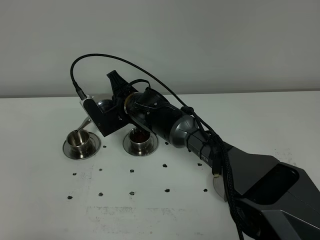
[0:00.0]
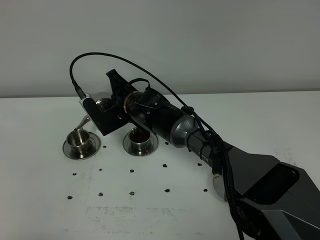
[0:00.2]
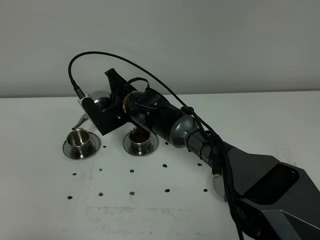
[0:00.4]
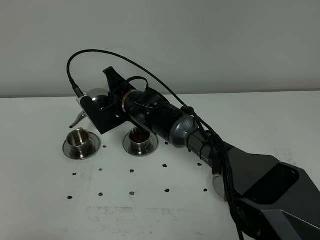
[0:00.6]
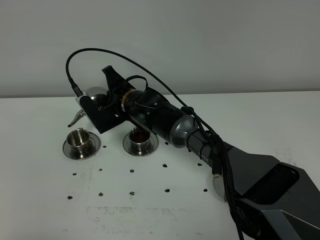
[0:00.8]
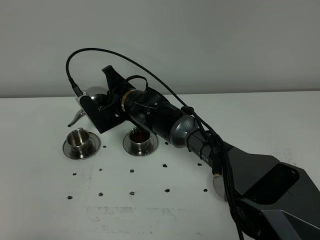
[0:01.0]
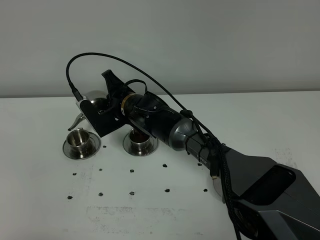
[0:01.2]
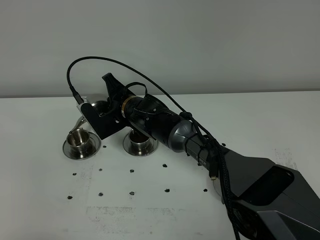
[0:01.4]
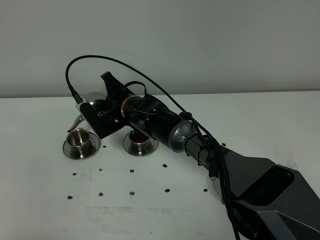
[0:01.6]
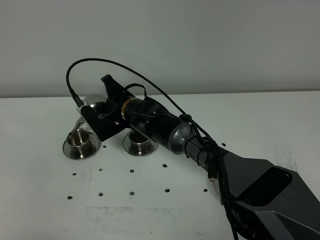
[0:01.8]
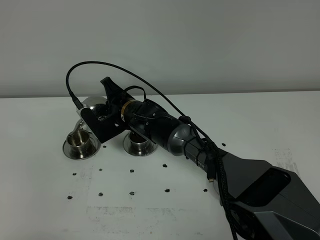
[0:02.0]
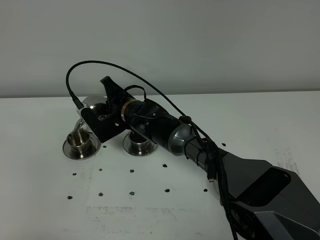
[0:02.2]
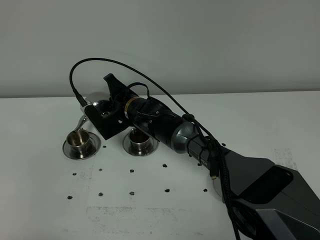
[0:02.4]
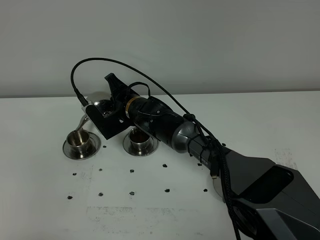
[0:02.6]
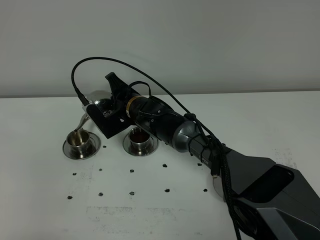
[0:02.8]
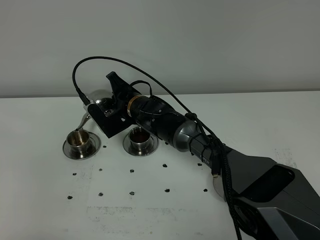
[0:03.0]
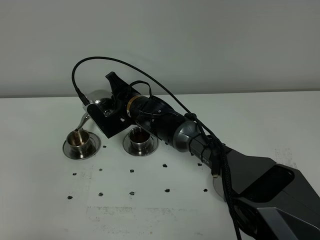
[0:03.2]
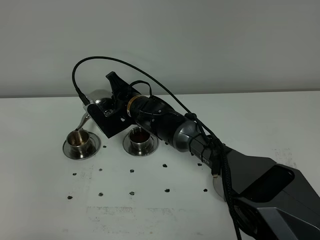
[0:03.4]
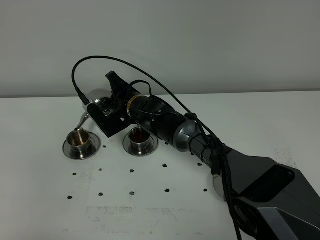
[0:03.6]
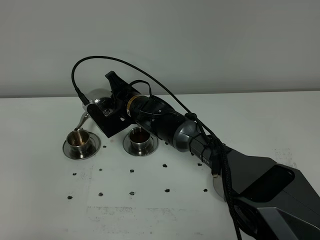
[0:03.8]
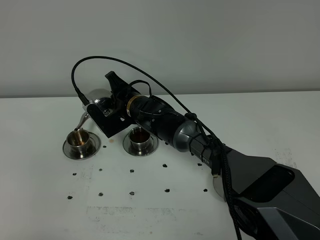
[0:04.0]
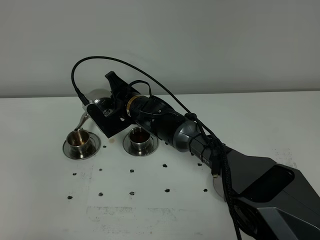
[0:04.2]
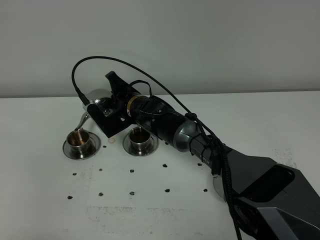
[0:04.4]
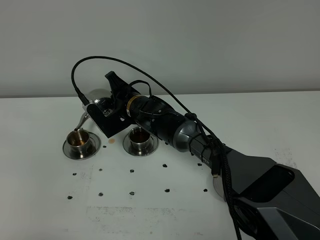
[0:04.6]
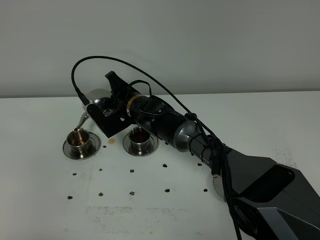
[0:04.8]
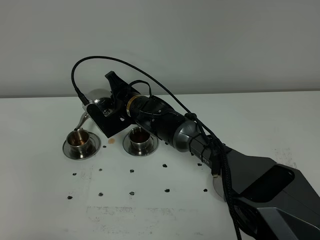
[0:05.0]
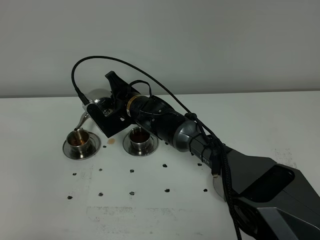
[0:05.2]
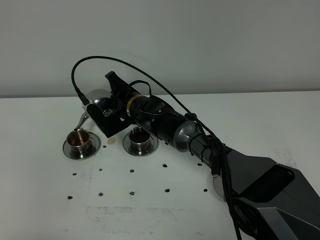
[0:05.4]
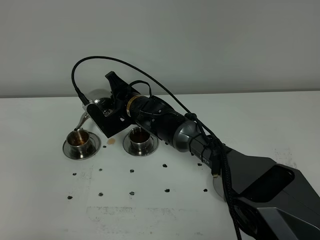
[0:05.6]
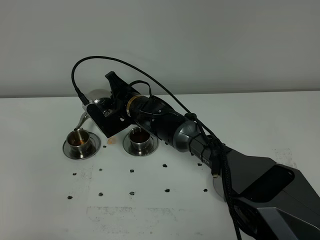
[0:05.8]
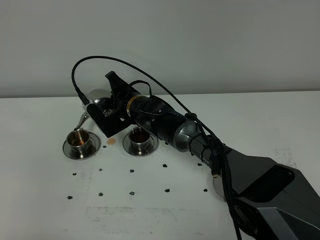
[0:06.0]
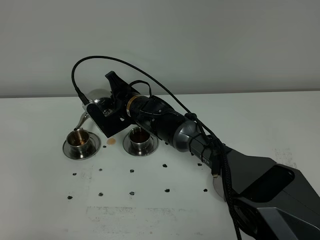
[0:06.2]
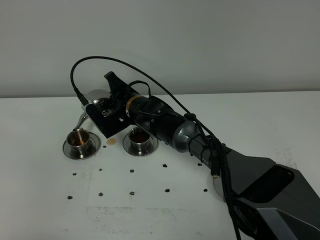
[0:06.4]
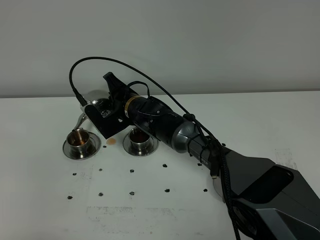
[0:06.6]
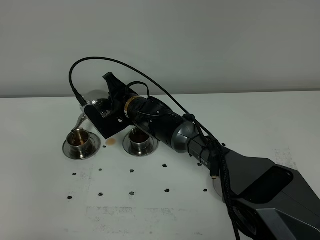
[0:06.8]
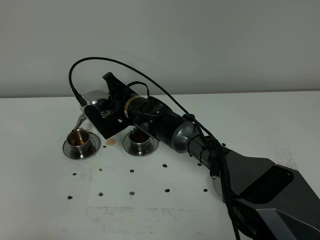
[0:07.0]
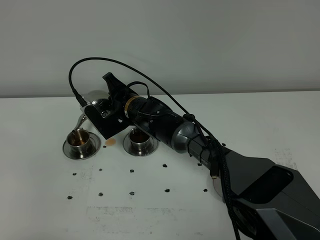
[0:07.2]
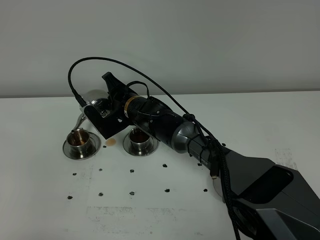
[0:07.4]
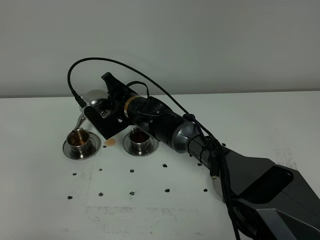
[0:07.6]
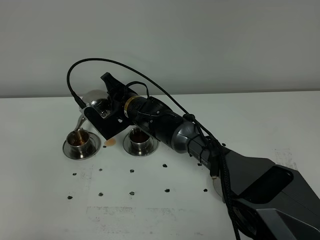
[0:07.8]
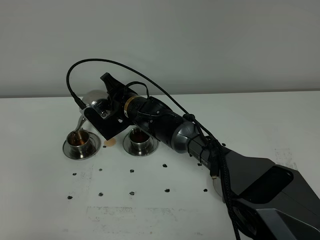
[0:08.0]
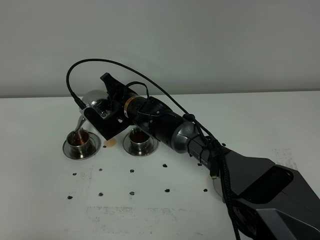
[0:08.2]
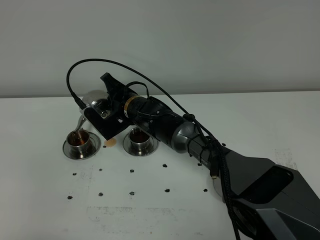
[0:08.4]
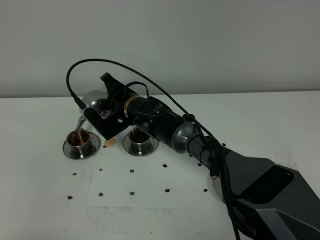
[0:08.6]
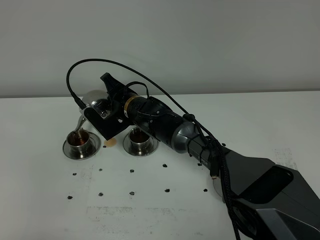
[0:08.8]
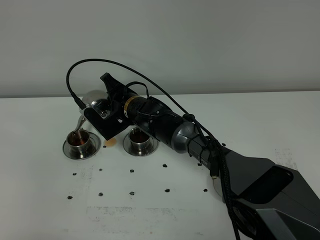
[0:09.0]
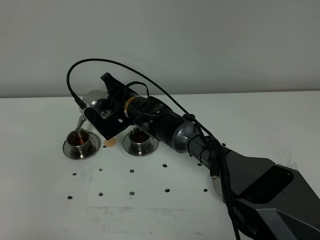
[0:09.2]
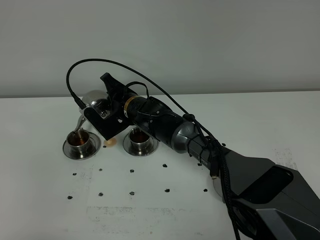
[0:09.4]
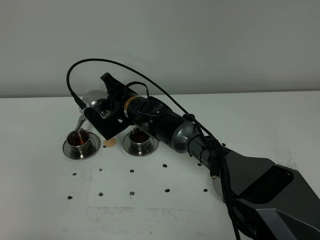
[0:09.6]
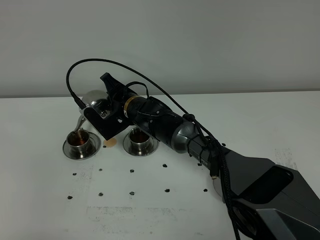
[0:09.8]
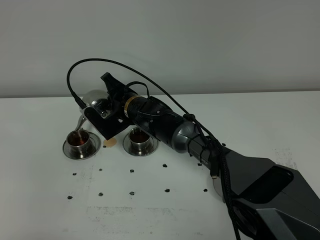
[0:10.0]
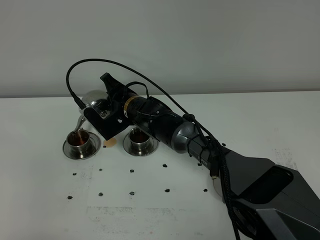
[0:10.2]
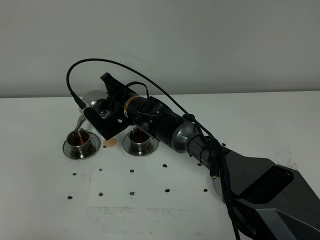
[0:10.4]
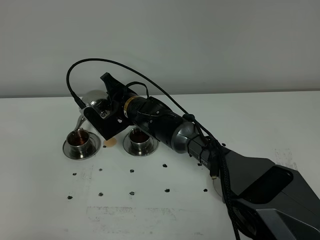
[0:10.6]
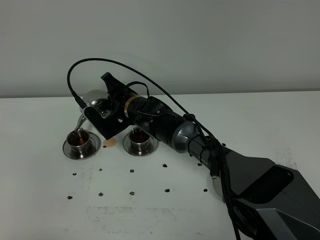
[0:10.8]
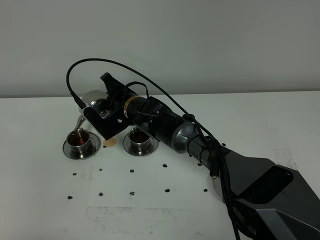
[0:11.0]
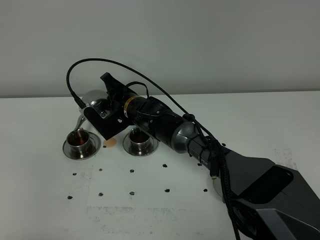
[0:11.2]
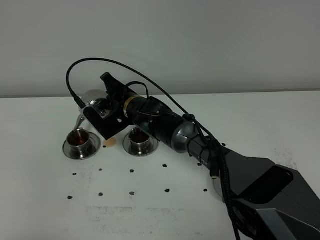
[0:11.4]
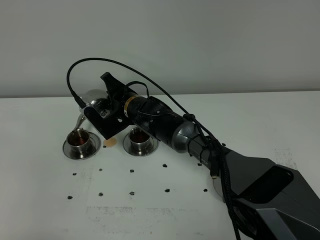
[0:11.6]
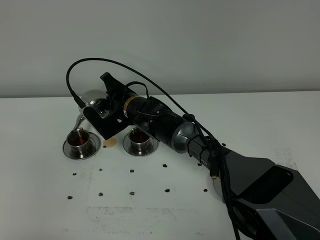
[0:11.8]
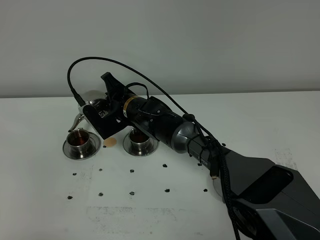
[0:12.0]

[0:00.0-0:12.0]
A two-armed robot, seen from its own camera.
Task of the whole recording: grasp the stainless steel teapot and pour the tea into the two stainless steel teacups one by one, put the stainless steel teapot back in its original place.
0:00.0 to 0:03.0: There are only small adjustments of the grippers.
0:03.0 to 0:12.0: Both grippers stay about where they are.

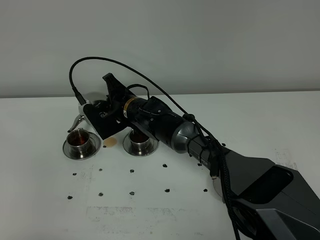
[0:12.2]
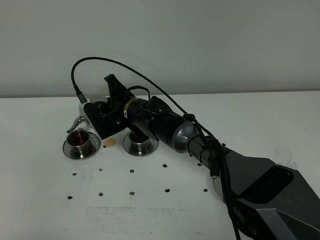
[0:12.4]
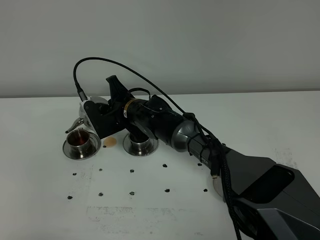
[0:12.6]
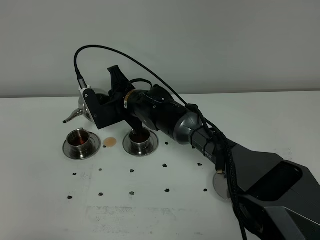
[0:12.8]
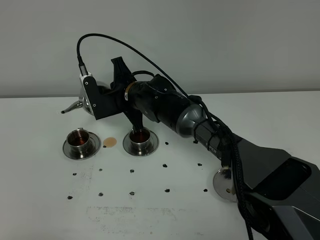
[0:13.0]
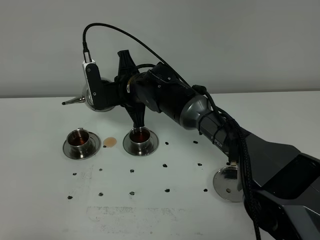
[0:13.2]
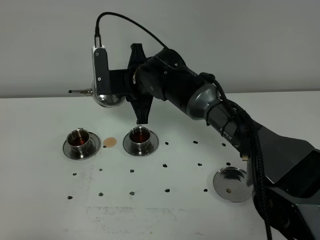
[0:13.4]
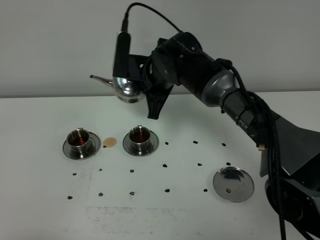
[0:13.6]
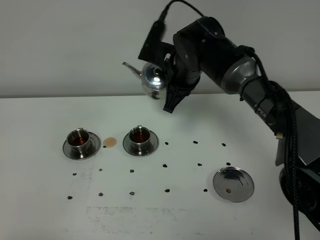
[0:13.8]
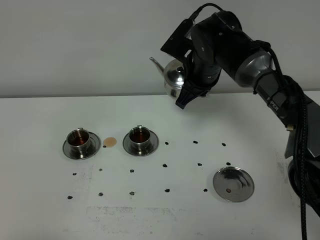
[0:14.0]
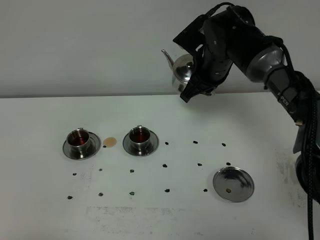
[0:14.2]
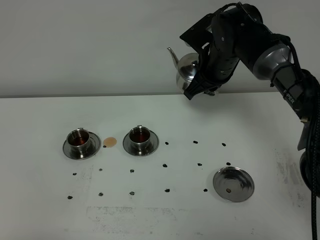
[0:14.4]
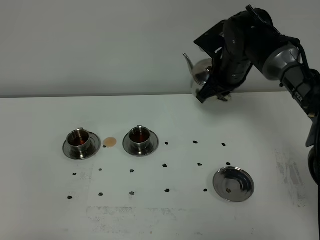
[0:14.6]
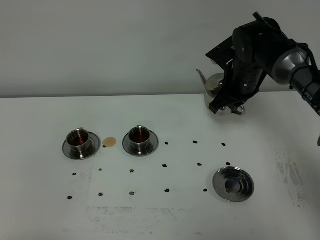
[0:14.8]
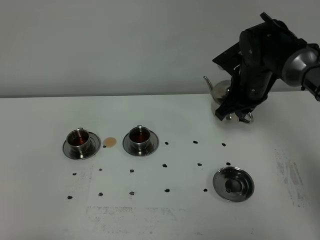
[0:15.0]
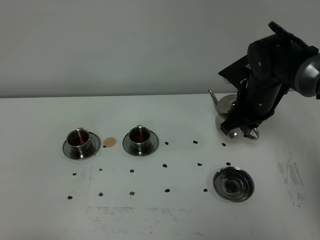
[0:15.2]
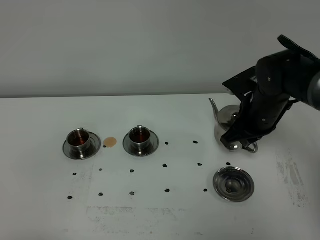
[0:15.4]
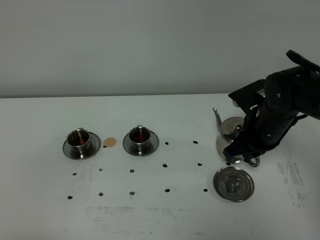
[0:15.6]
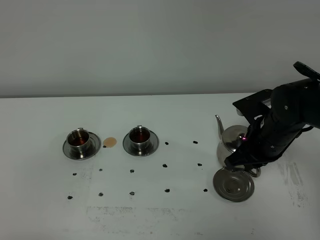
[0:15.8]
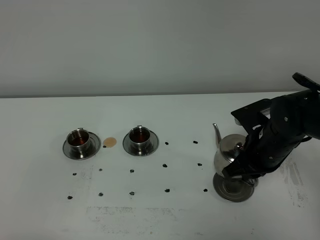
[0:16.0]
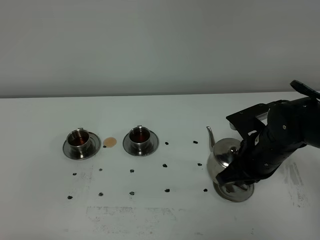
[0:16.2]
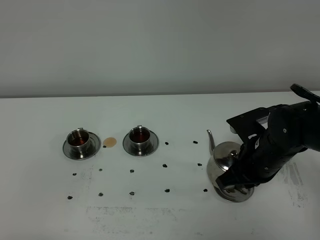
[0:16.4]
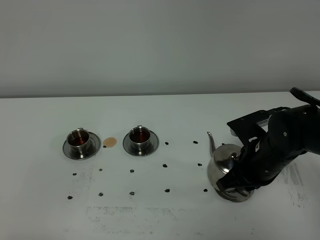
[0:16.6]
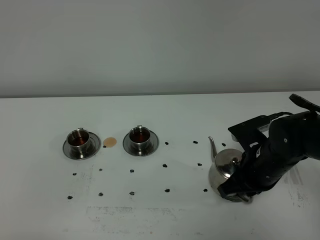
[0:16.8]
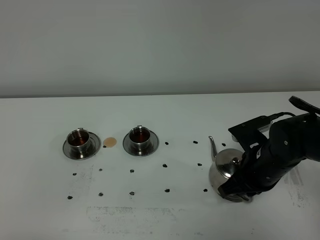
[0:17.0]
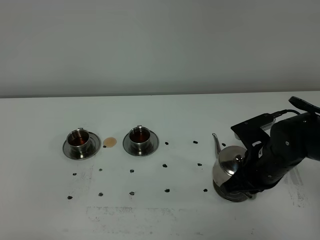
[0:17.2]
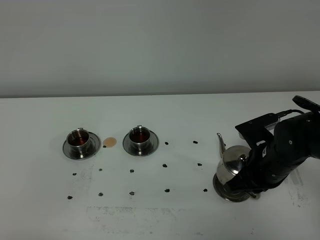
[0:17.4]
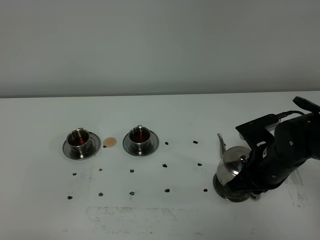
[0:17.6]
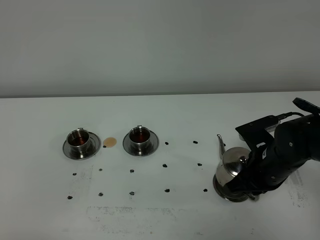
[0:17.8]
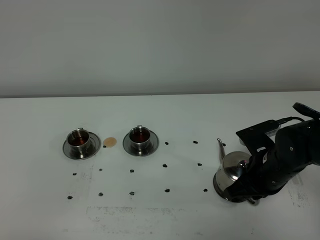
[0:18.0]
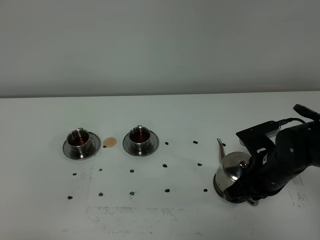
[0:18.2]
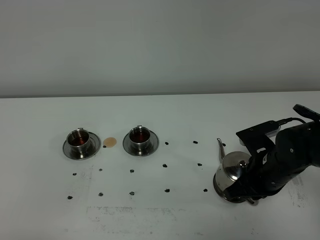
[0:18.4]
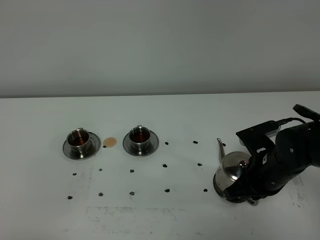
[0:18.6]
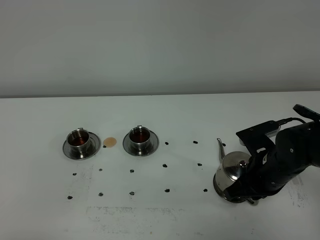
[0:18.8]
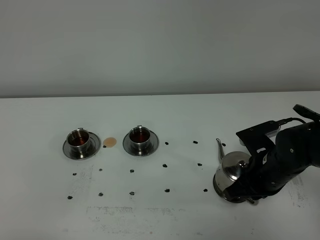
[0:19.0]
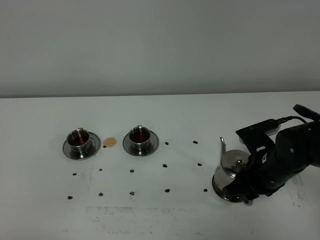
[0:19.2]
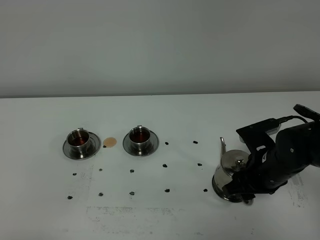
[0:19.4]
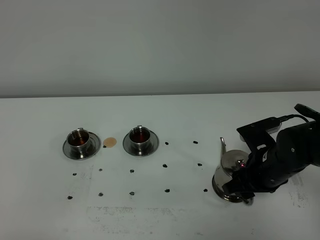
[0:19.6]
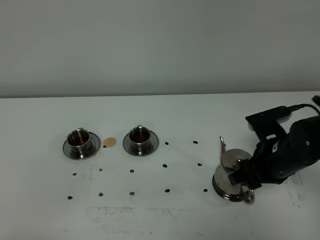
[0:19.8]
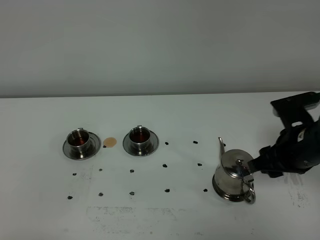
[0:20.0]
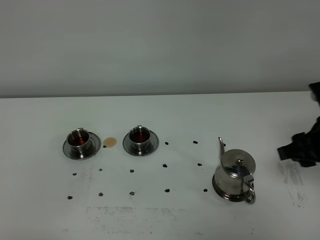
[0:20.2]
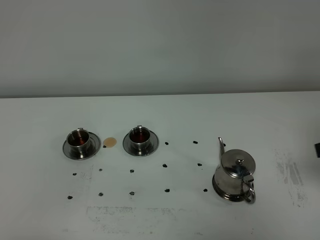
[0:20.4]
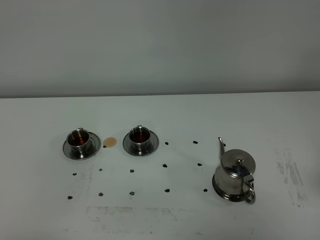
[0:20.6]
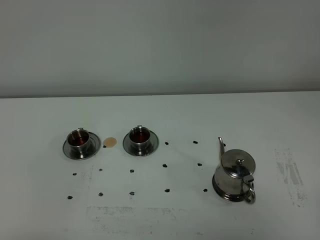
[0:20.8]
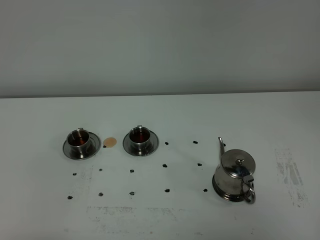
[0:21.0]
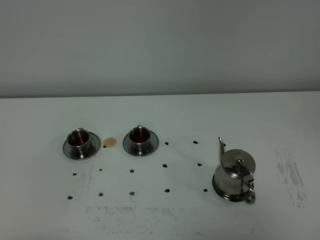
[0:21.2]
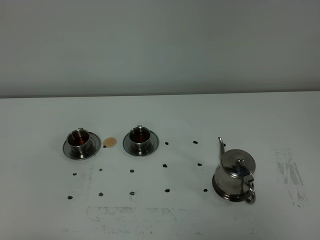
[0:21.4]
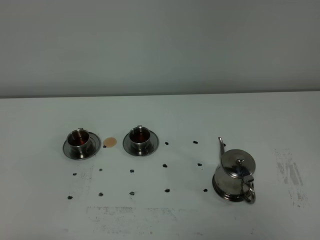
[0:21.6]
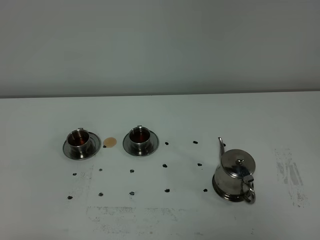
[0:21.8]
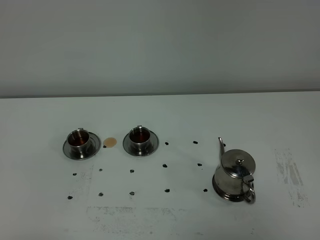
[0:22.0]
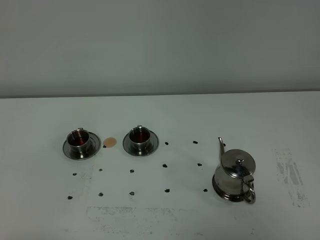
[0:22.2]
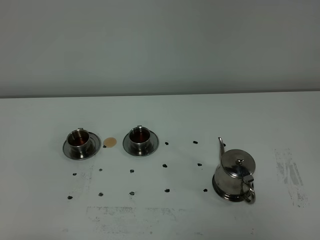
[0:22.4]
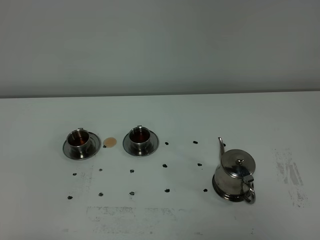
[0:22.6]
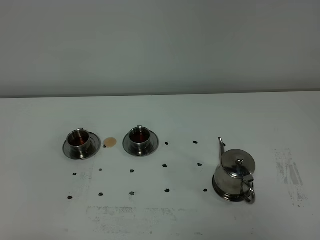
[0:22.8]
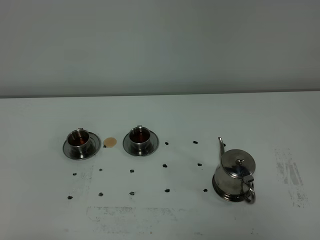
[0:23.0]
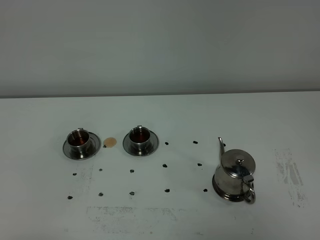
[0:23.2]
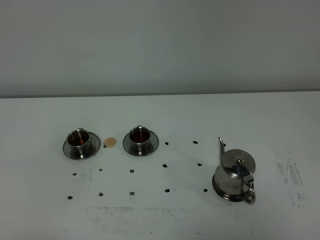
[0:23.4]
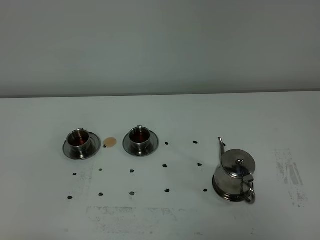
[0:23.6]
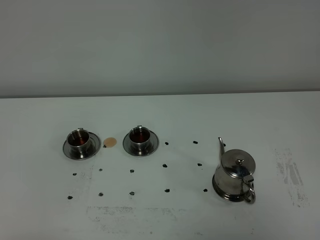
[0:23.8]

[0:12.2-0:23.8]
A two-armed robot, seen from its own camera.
Task of the whole recording: grasp the stainless steel teapot and pour the tea into the two stainless steel teacups one by one, put the stainless steel teapot back in its original place.
0:12.2 to 0:13.6: The right gripper is displaced upward and to the right by about 15 cm.
0:13.6 to 0:15.0: The right gripper heads to the right, covering roughly 15 cm.
0:15.0 to 0:16.6: The right gripper moves backward and downward, some 15 cm.
0:16.6 to 0:18.0: There are only small adjustments of the grippers.
0:18.0 to 0:19.4: The right gripper opens up.
0:19.4 to 0:21.0: The right gripper travels backward, upward and to the right by roughly 30 cm.
